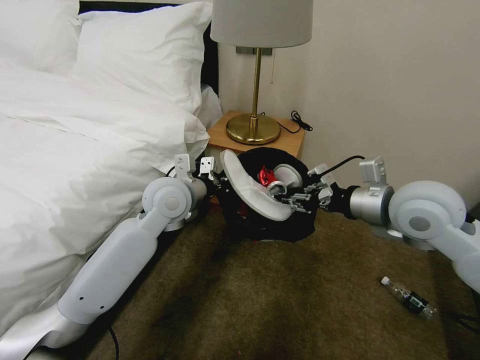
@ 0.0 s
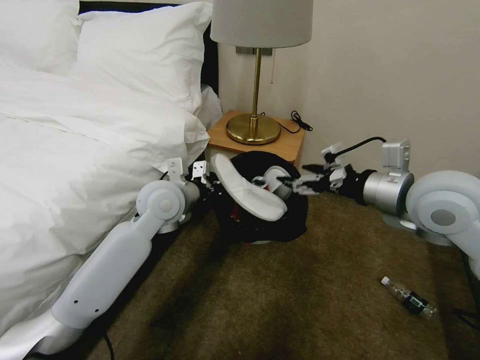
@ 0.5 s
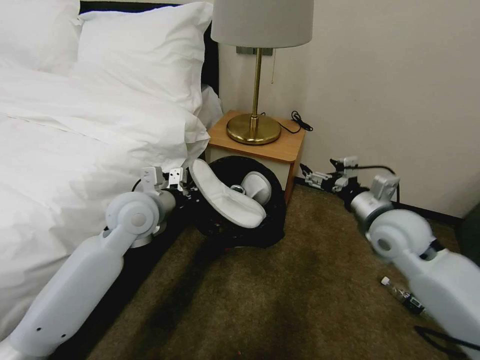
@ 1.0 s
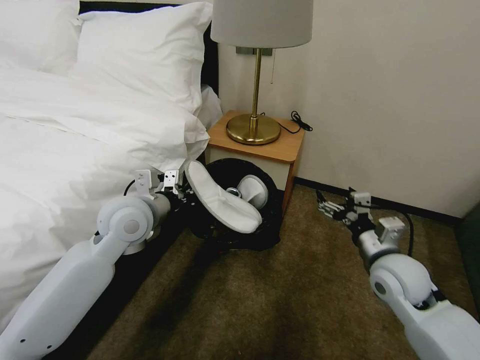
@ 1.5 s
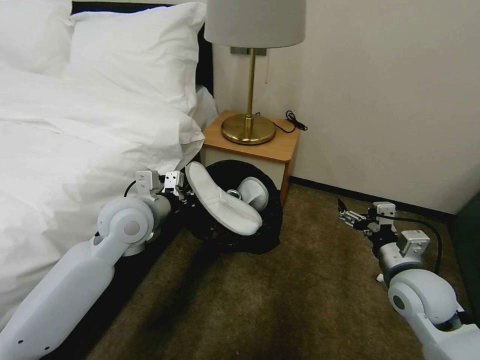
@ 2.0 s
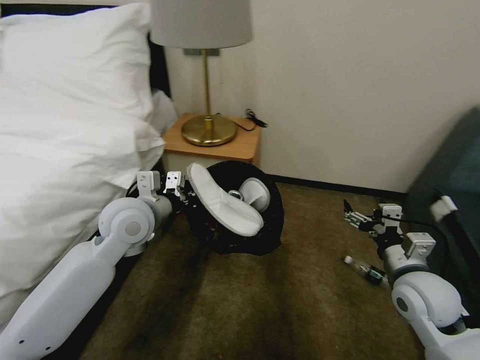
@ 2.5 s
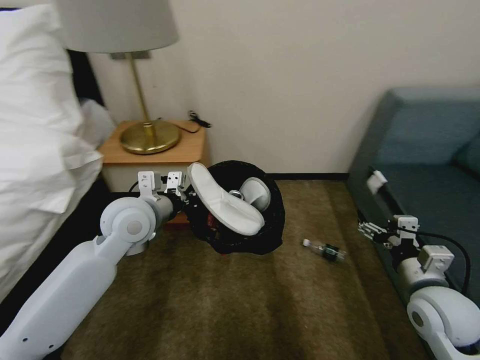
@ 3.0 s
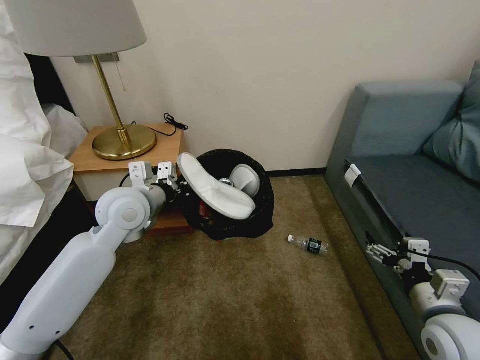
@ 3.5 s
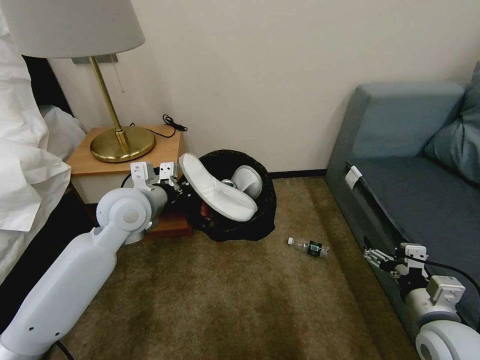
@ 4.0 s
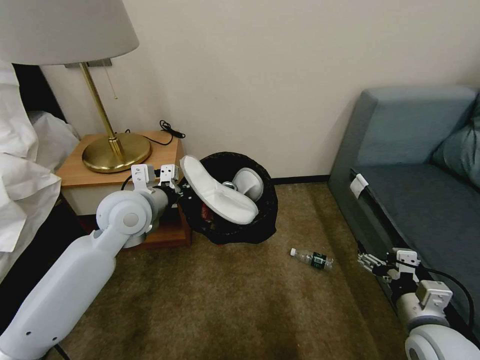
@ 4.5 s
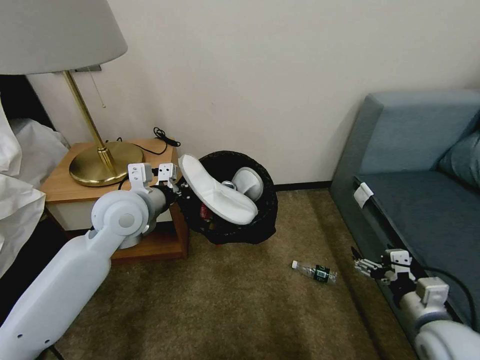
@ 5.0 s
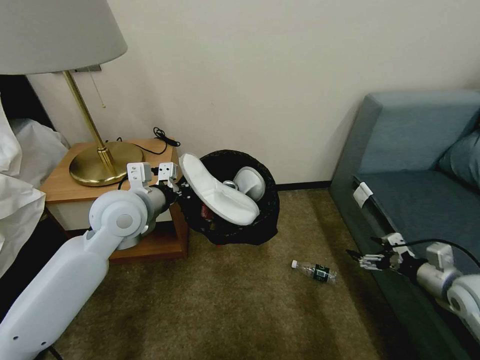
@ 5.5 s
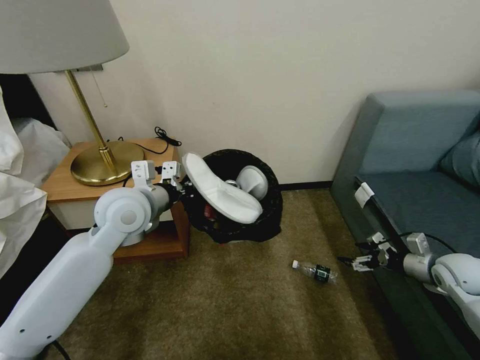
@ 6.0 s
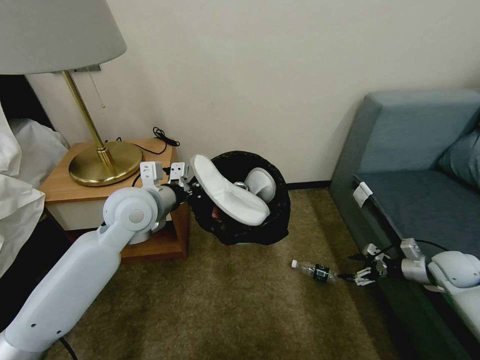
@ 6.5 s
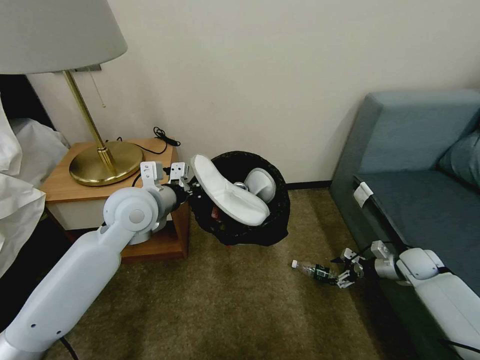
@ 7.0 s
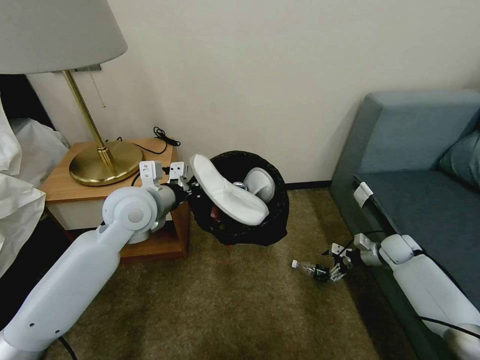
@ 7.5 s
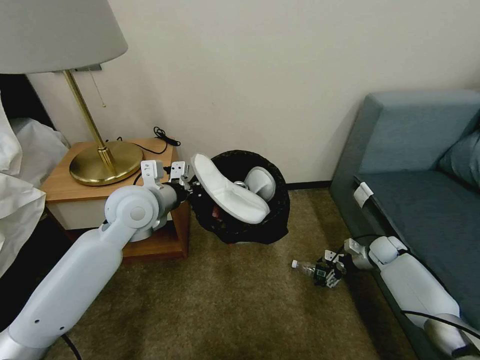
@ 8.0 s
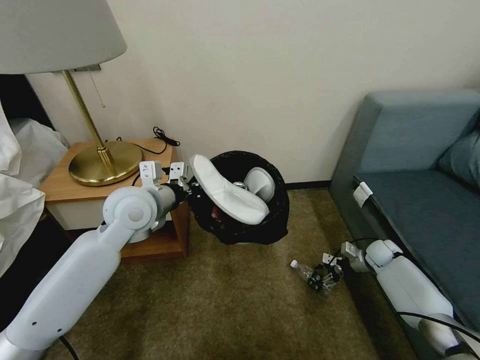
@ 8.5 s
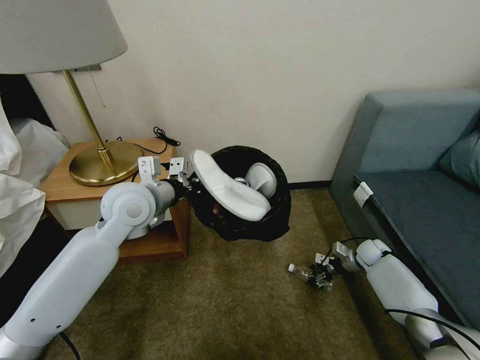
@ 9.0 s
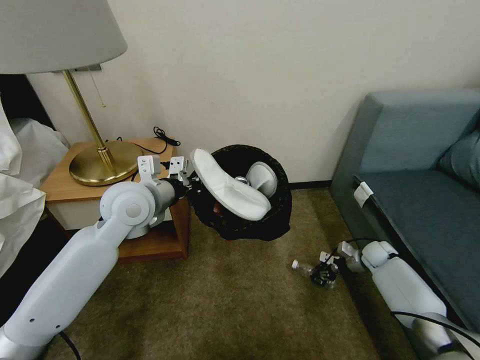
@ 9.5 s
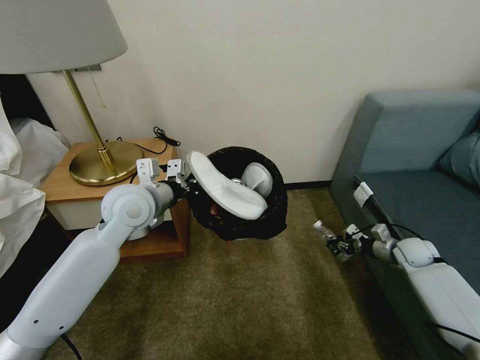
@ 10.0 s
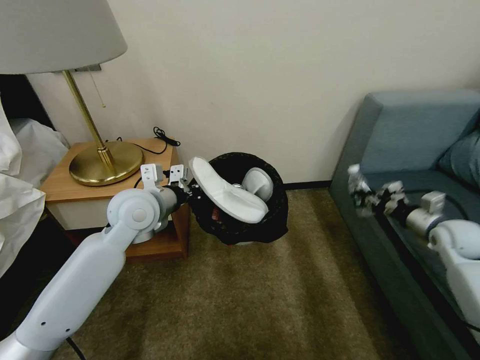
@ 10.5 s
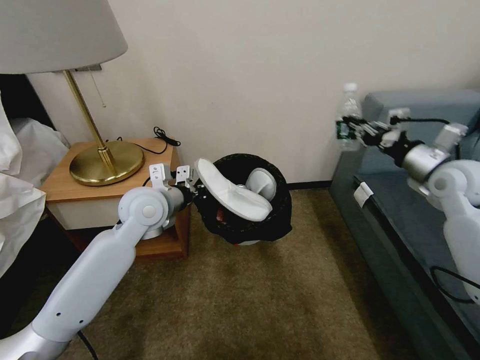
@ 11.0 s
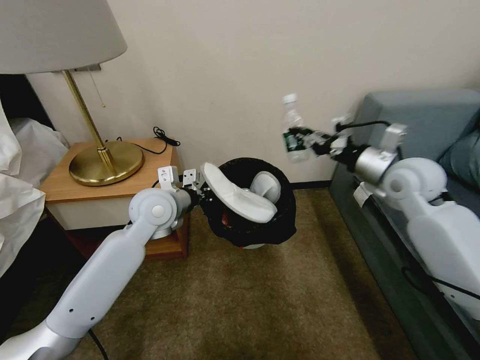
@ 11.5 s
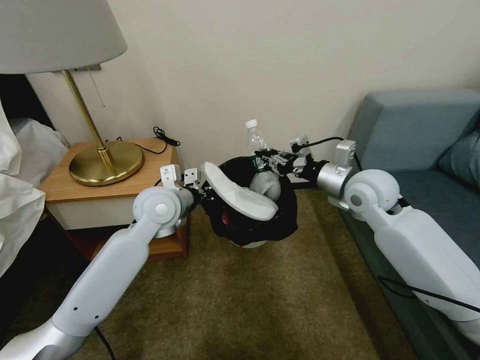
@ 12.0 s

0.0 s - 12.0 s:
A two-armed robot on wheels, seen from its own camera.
Task of the whole recording: Pick up the trash bin, then pick up the garbage on the floor and place it into the trash bin.
0.0 s - 2.0 s: The left gripper moves to the left, about 5 cm. Meanwhile the right gripper travels downward and backward by about 20 cm, and opens its fingers.
2.0 s - 4.0 s: The right gripper goes some 10 cm backward.
4.0 s - 6.0 s: The right gripper heads forward and to the right, covering some 20 cm.
6.0 s - 8.0 s: The right gripper is displaced forward and downward by approximately 20 cm.
8.0 s - 10.0 s: The right gripper changes place by approximately 5 cm, and closes up.
10.0 s - 12.0 s: The left gripper ends up about 5 cm from where it was. The right gripper is displaced upward and to the left by roughly 35 cm.

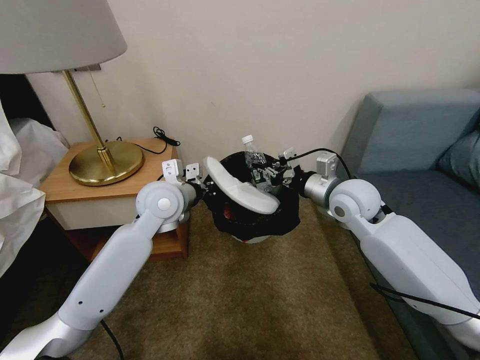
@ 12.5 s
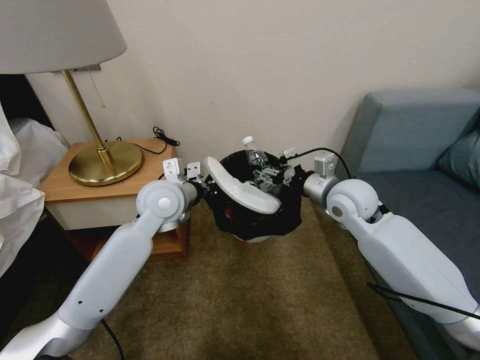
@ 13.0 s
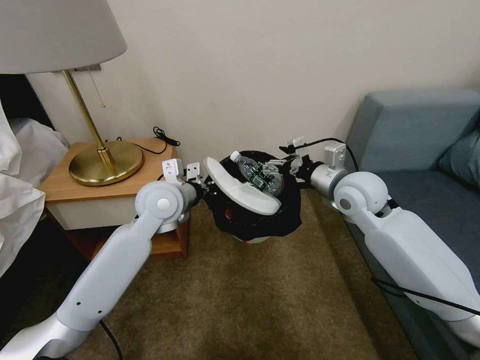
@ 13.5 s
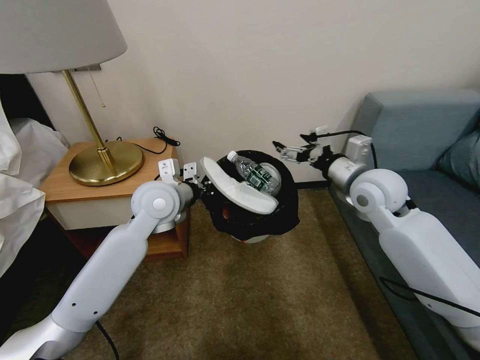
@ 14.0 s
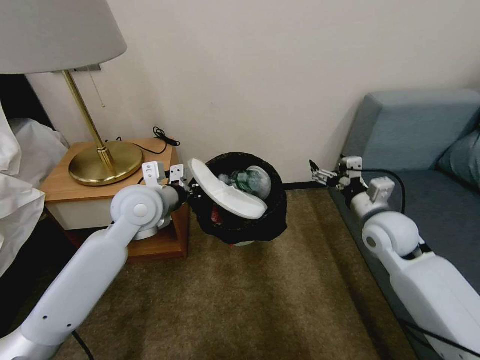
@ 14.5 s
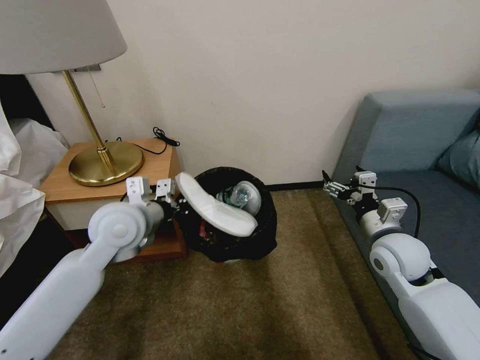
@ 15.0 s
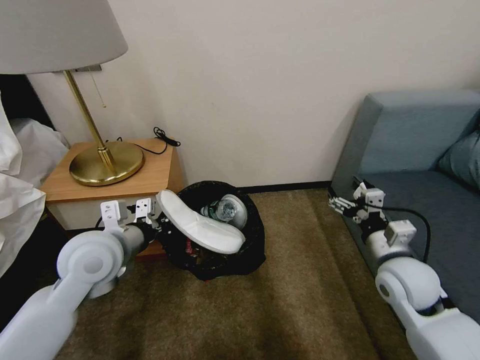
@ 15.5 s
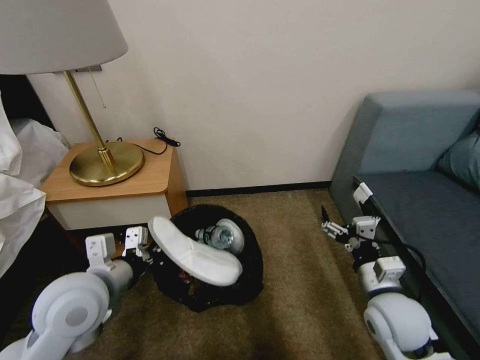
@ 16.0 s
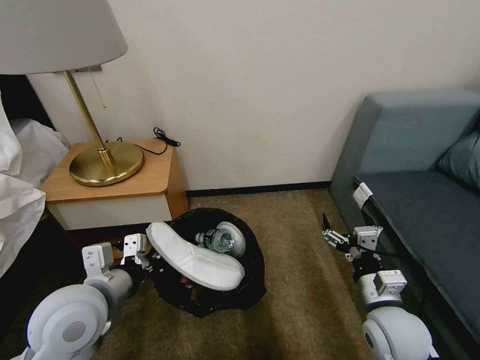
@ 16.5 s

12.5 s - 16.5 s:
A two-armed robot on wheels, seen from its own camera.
Task of the whole recording: Pick up the trash bin, then pick up the garbage on the floor and place it into the trash bin.
12.5 s - 14.5 s: The right gripper is displaced to the right by approximately 10 cm, and opens up.
14.5 s - 16.5 s: The right gripper heads backward and downward, covering approximately 20 cm, while the left gripper travels backward by approximately 20 cm.

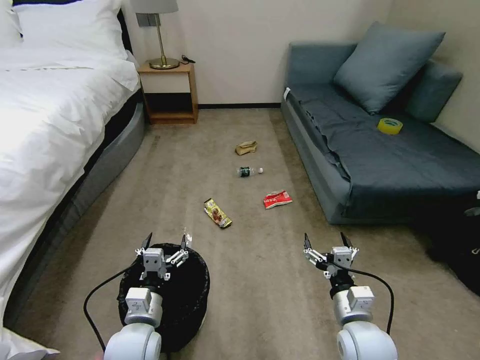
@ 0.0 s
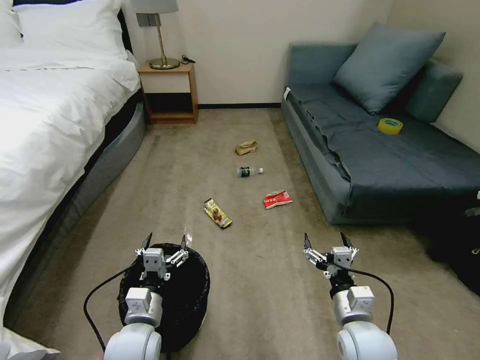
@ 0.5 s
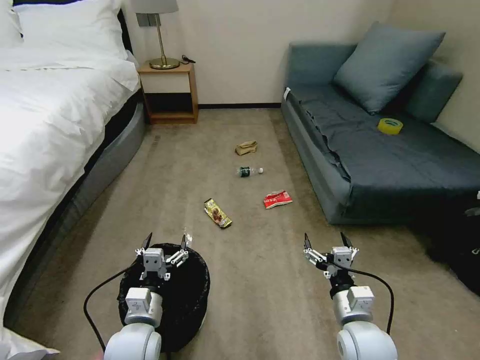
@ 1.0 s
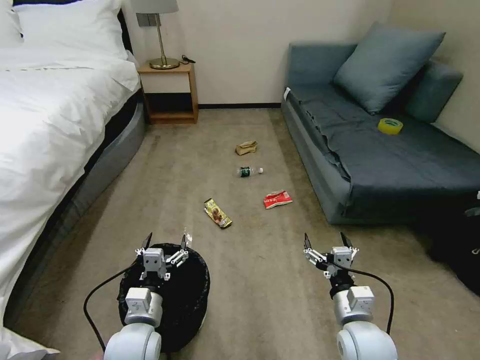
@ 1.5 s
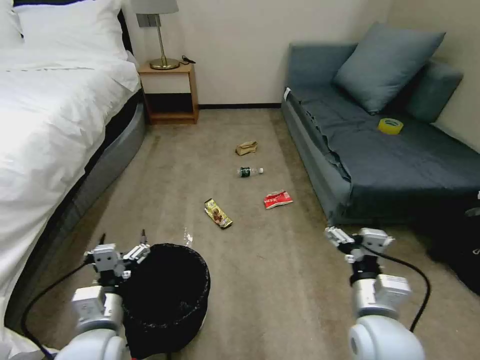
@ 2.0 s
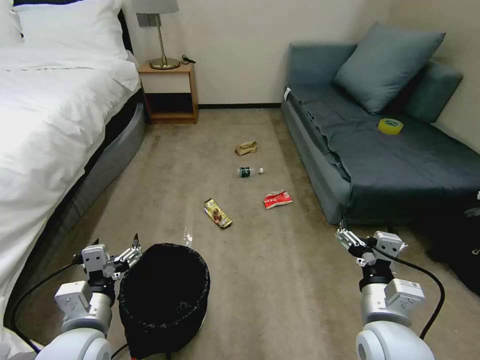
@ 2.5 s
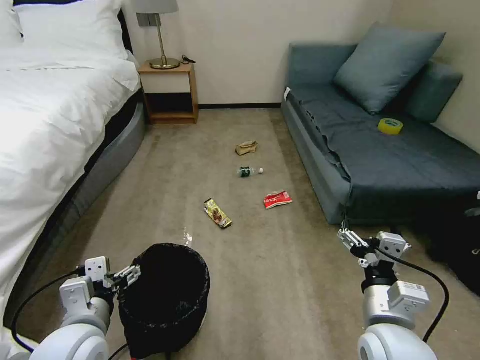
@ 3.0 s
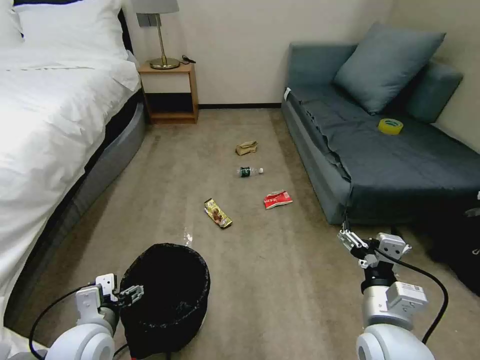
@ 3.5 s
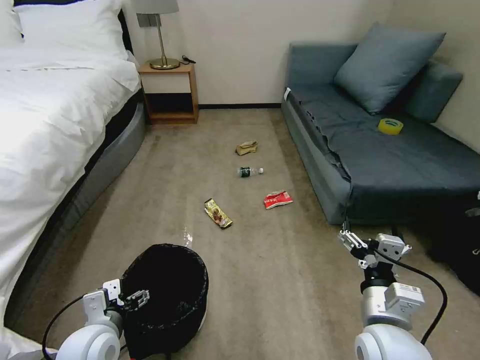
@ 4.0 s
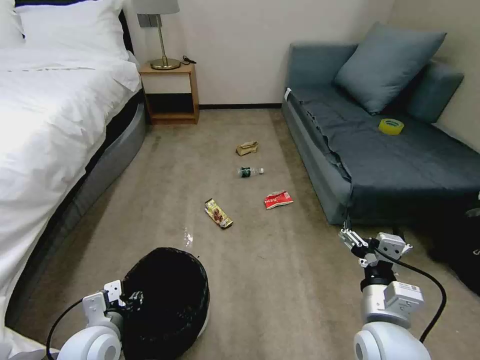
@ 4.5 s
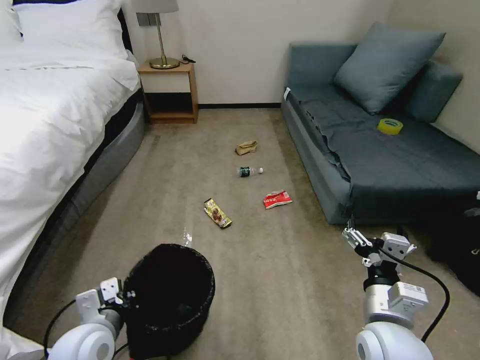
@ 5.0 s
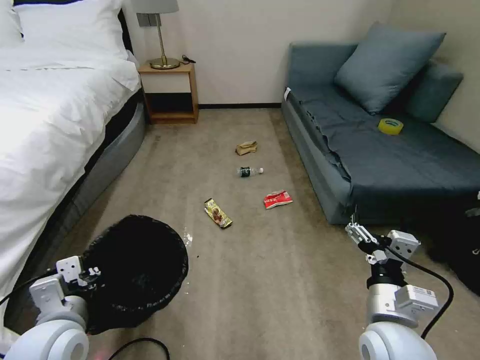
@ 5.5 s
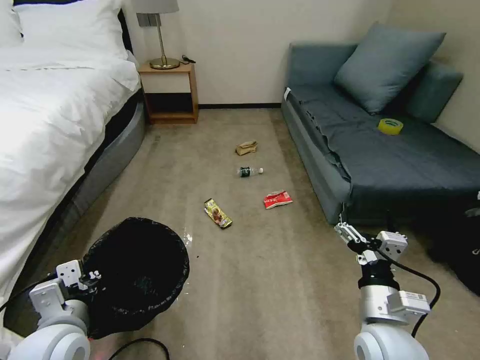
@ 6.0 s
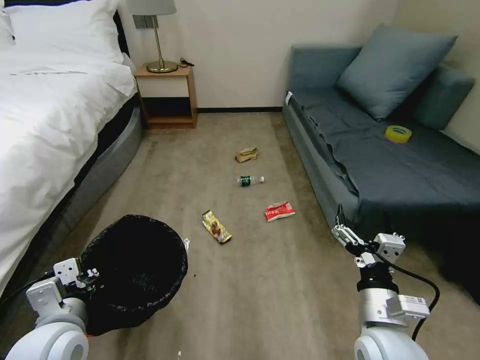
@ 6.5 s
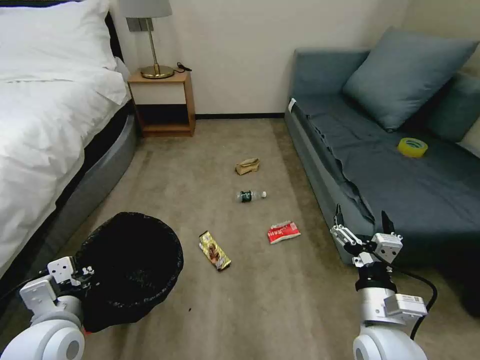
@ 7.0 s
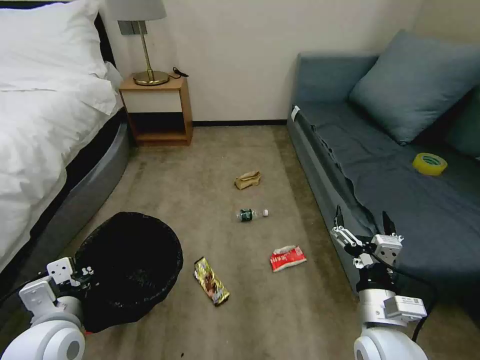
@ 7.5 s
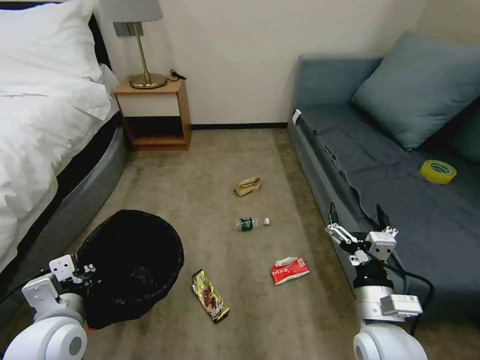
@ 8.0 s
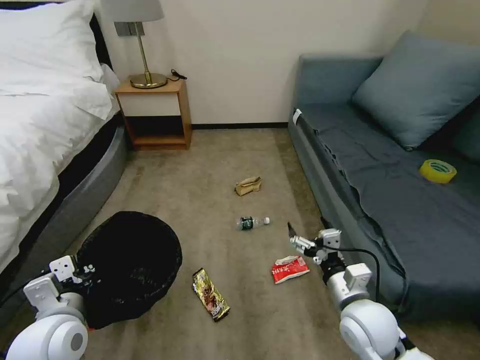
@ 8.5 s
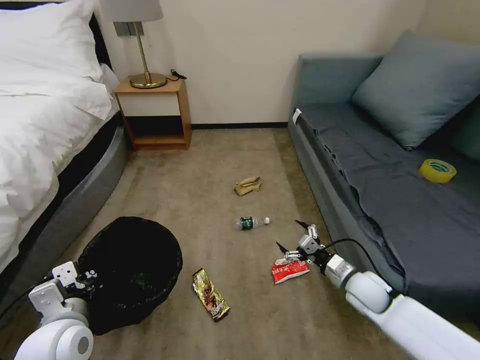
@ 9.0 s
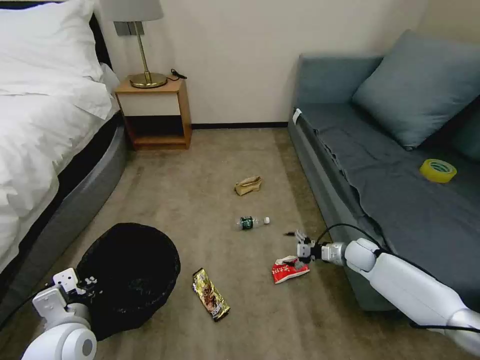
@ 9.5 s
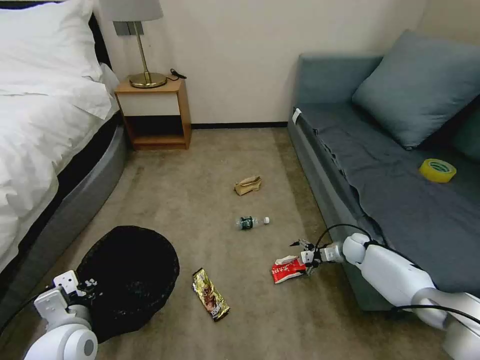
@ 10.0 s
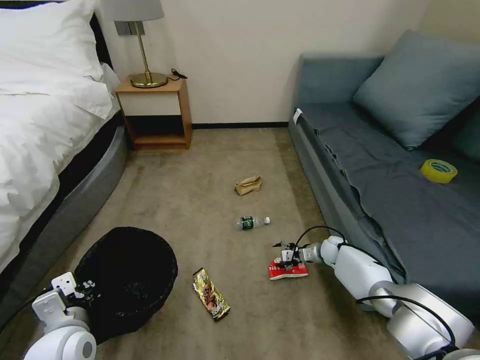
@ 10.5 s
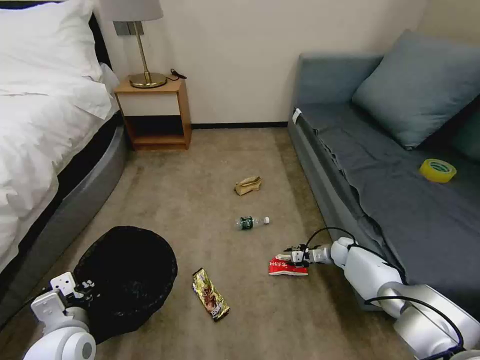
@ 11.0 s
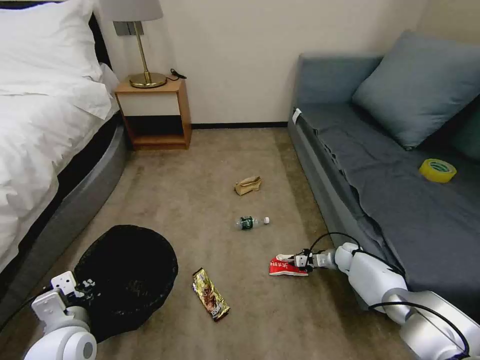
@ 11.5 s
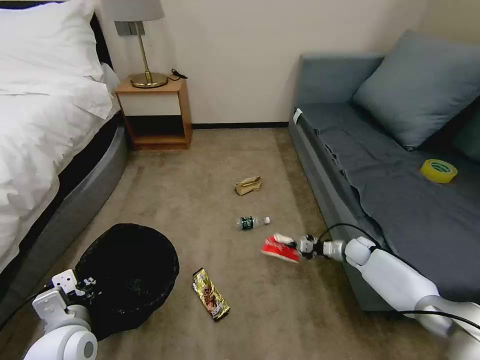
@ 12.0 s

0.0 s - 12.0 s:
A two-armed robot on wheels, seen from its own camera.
Task of the whole recording: Pick up the trash bin, then pick up the garbage on the floor and place it into the trash bin.
4.0 s - 6.0 s: The left gripper moves upward, about 10 cm, and closes up.
8.0 s - 10.0 s: The right gripper is displaced forward, downward and to the right by about 40 cm.
10.0 s - 12.0 s: The right gripper closes its fingers.
